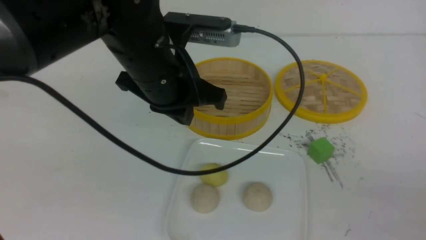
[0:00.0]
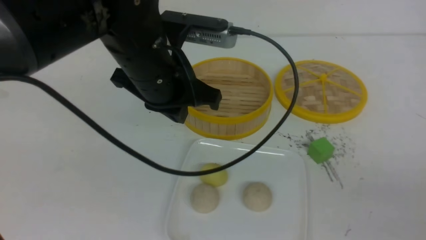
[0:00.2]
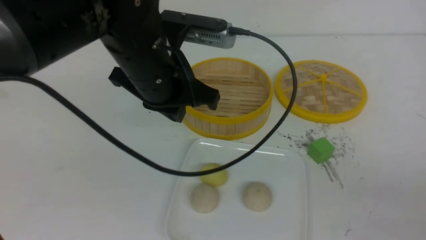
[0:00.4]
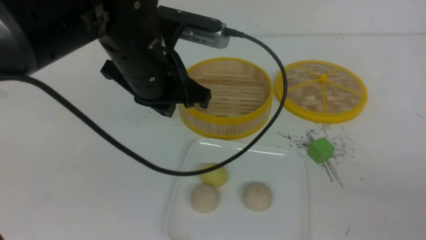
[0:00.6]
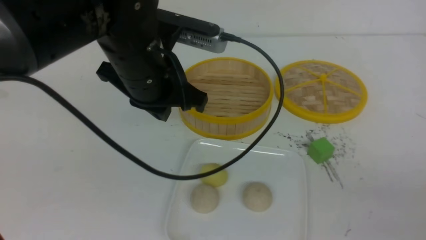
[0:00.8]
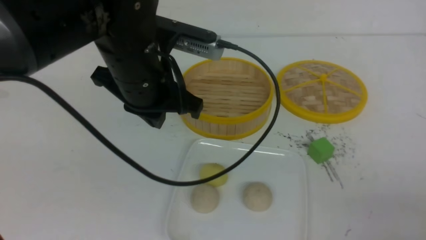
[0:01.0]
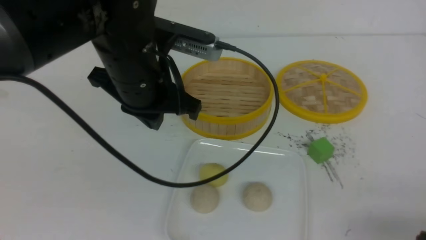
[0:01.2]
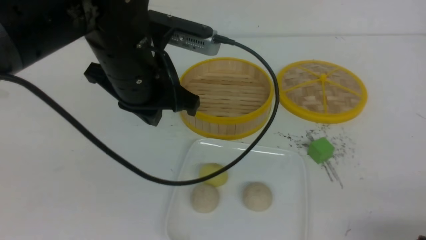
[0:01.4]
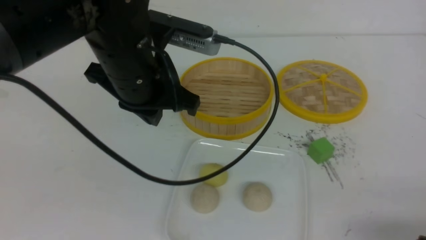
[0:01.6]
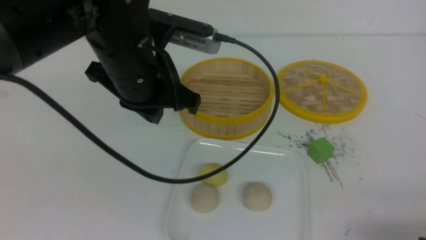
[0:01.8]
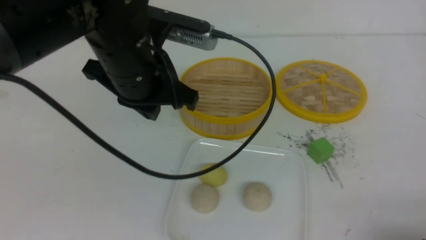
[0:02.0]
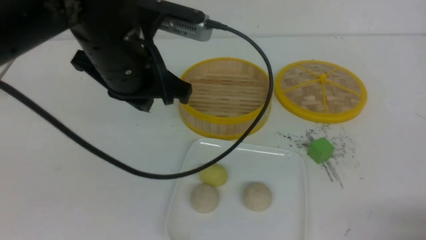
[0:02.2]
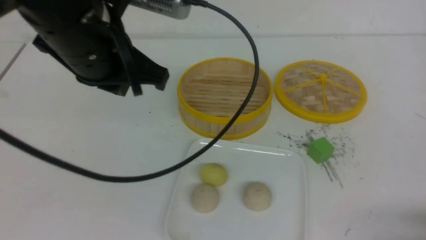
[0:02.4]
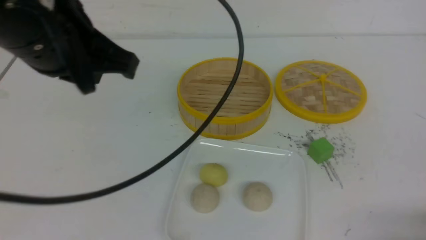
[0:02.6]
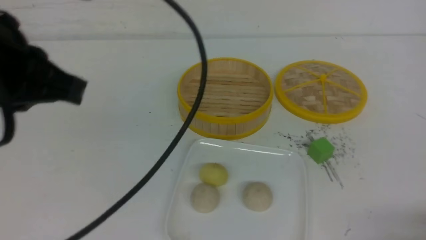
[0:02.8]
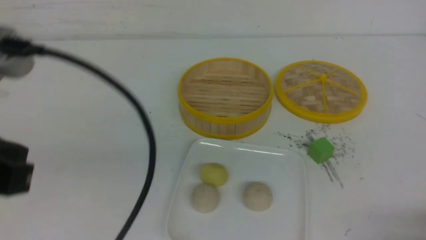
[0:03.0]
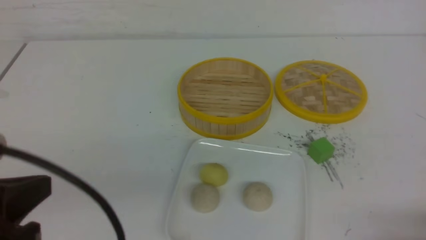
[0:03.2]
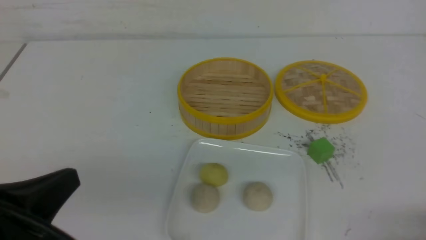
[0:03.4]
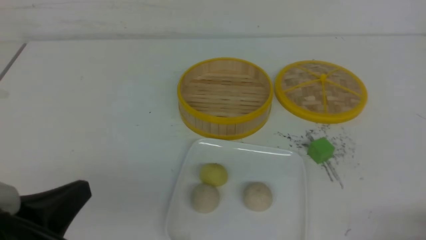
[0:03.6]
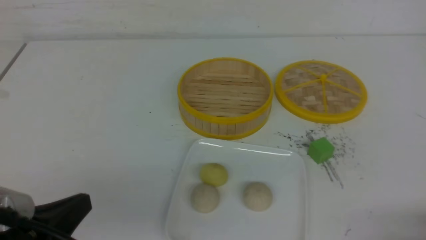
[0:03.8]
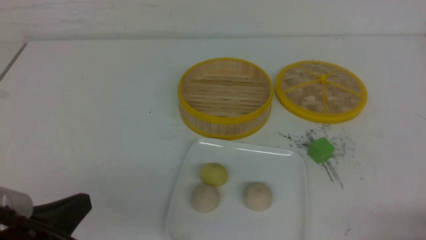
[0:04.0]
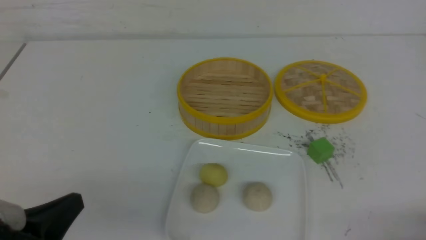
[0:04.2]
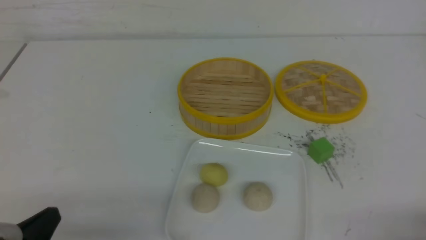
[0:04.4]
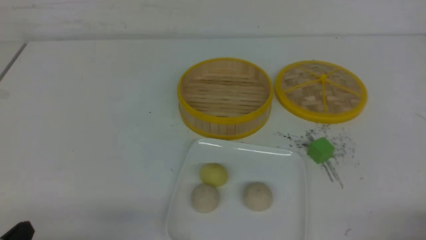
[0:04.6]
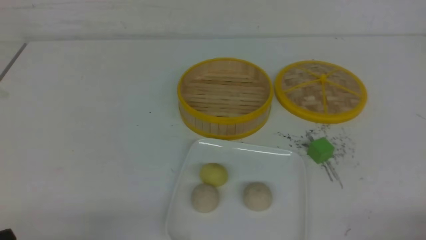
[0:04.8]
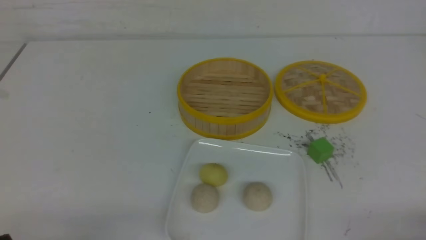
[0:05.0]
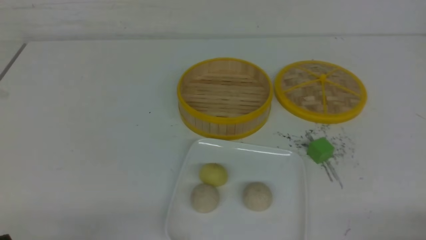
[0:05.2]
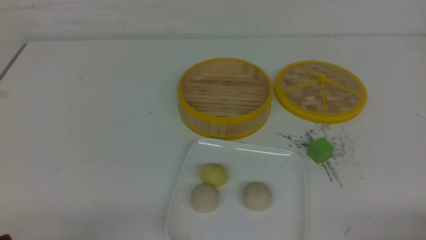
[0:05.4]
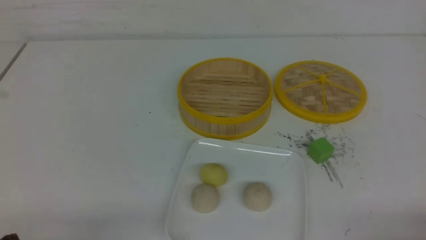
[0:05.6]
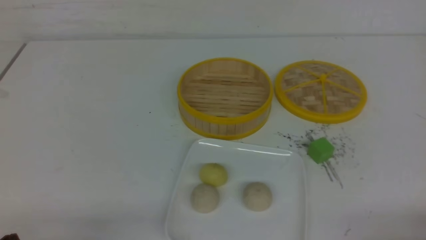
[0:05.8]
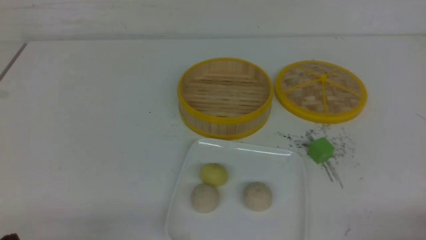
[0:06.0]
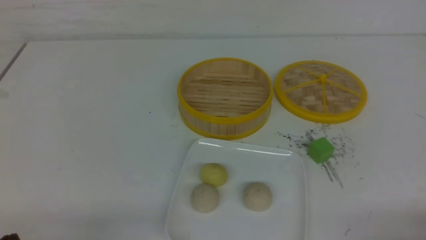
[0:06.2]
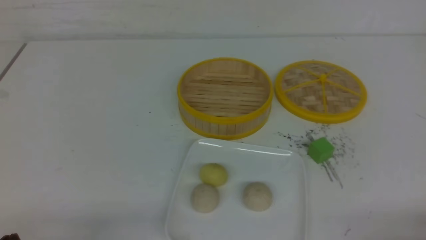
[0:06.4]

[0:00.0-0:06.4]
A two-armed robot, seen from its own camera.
0:00.0 to 0:01.6: The right gripper travels downward by about 10 cm.
0:01.6 to 0:03.2: The left gripper heads backward and to the left, covering about 25 cm.
0:03.2 to 0:04.8: The left gripper travels downward by roughly 15 cm.
0:04.8 to 0:06.4: The two grippers keep their place.
